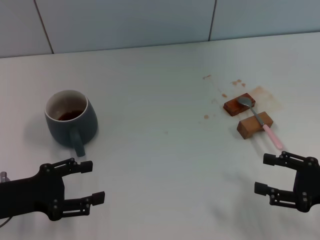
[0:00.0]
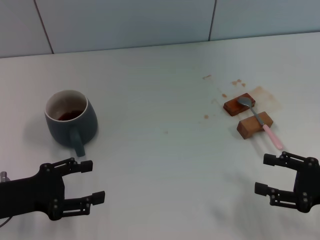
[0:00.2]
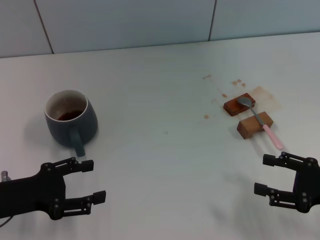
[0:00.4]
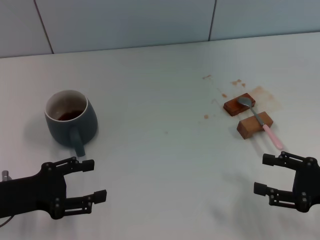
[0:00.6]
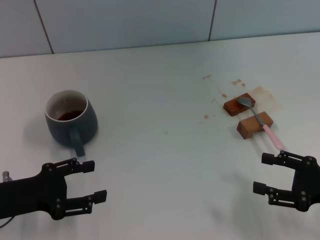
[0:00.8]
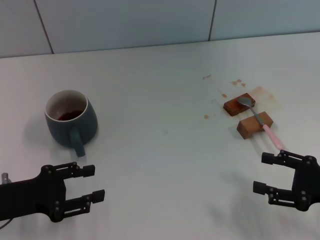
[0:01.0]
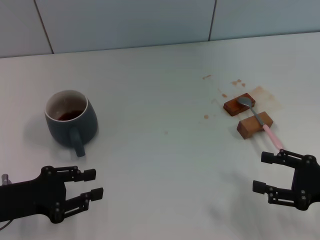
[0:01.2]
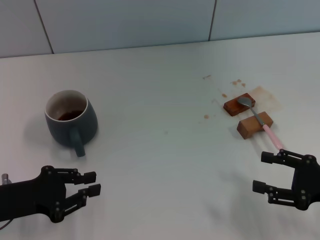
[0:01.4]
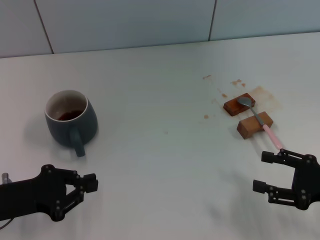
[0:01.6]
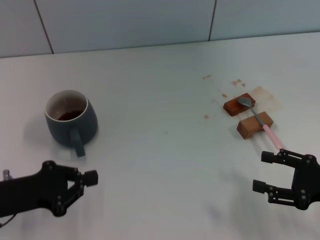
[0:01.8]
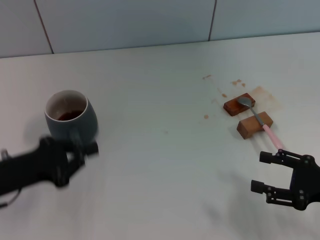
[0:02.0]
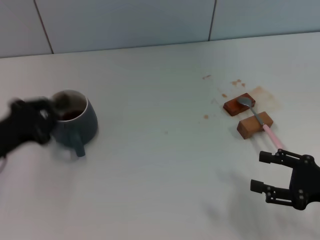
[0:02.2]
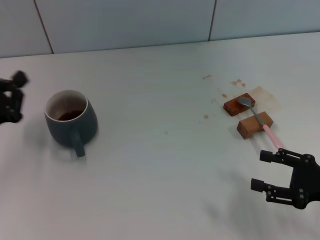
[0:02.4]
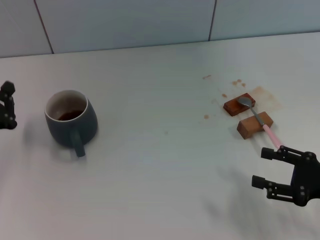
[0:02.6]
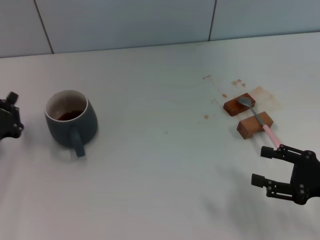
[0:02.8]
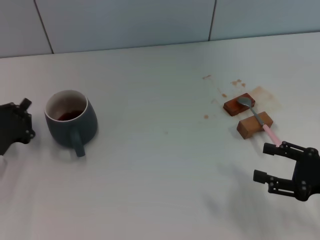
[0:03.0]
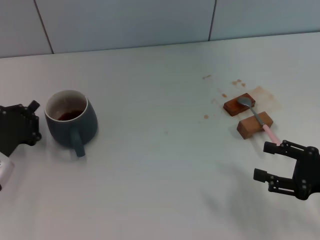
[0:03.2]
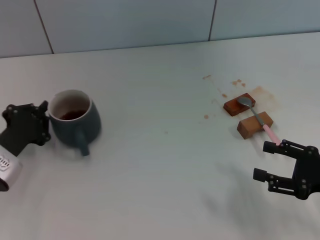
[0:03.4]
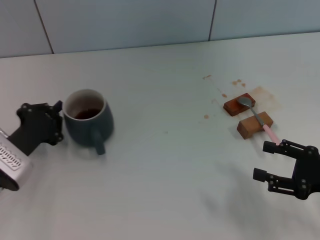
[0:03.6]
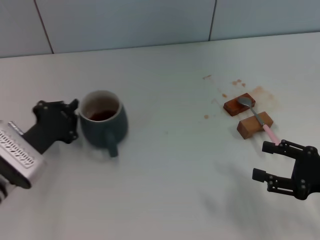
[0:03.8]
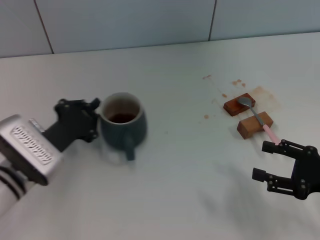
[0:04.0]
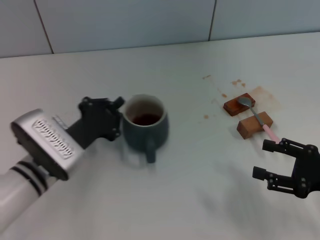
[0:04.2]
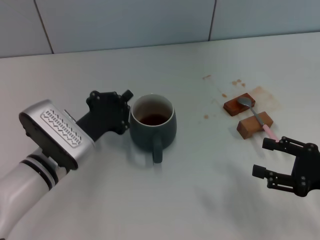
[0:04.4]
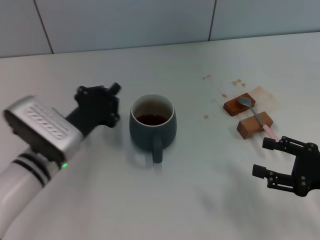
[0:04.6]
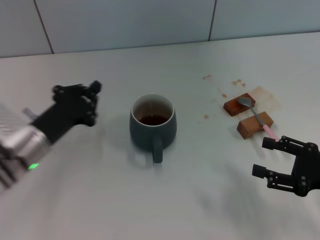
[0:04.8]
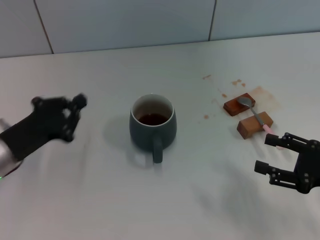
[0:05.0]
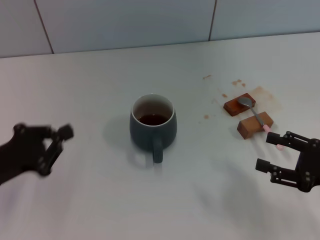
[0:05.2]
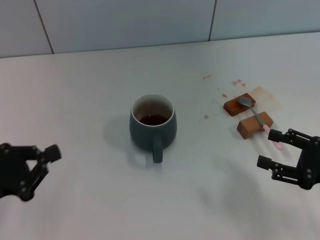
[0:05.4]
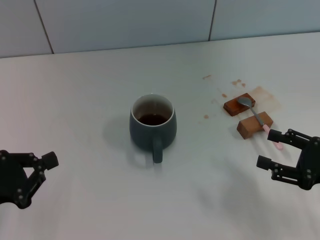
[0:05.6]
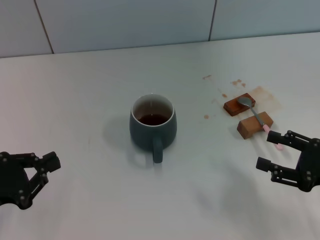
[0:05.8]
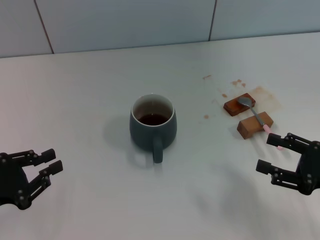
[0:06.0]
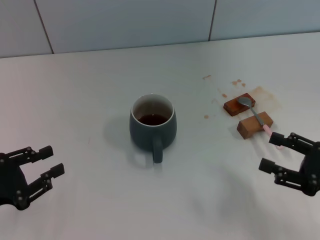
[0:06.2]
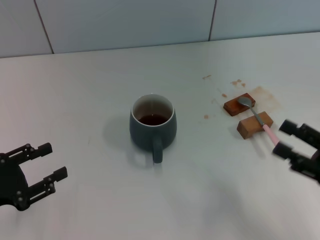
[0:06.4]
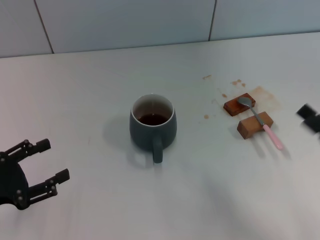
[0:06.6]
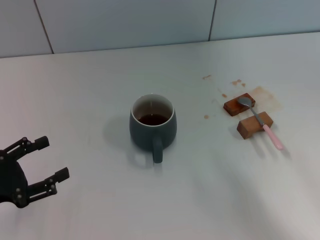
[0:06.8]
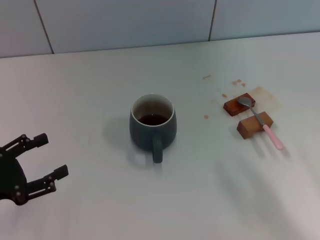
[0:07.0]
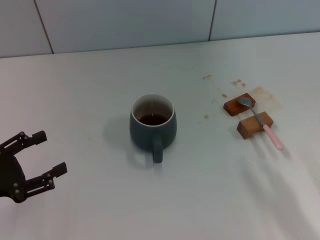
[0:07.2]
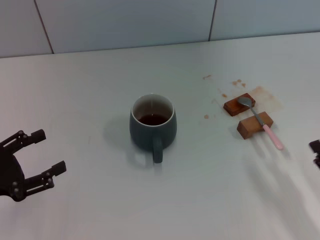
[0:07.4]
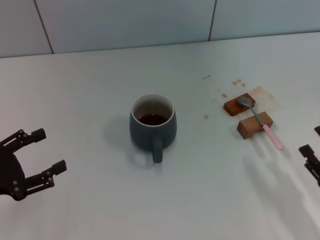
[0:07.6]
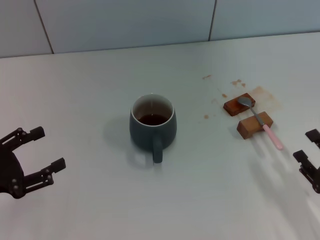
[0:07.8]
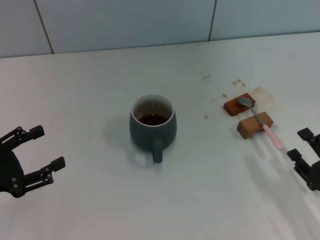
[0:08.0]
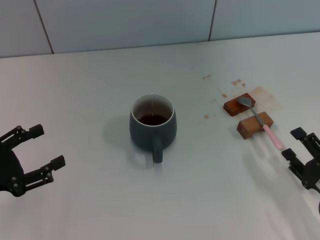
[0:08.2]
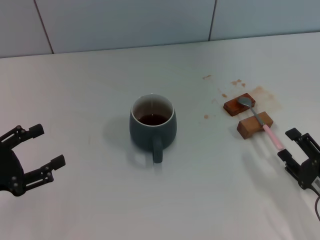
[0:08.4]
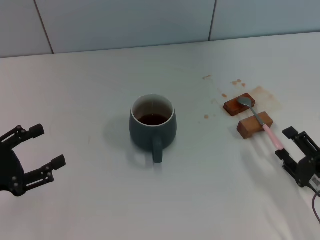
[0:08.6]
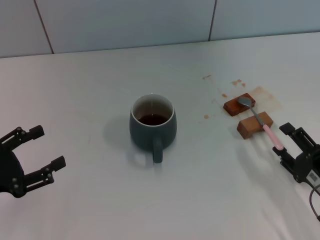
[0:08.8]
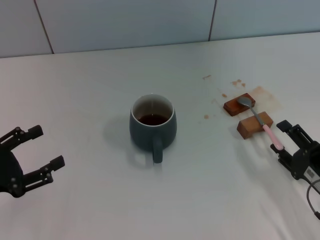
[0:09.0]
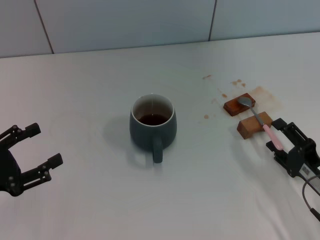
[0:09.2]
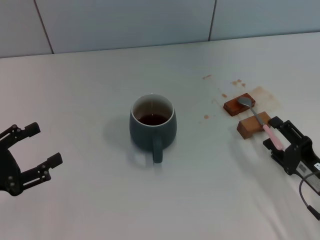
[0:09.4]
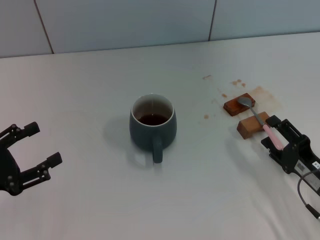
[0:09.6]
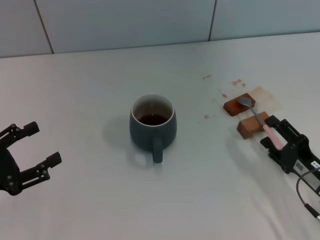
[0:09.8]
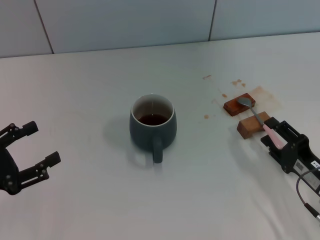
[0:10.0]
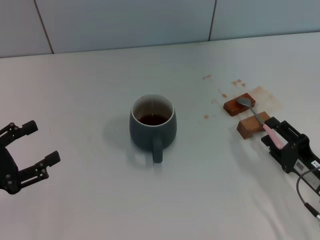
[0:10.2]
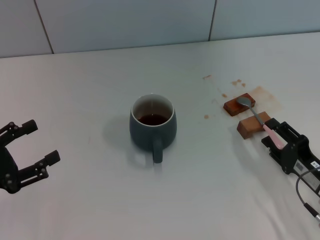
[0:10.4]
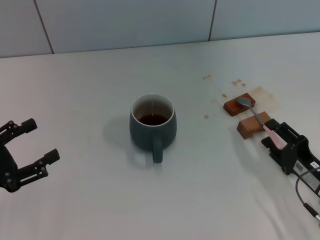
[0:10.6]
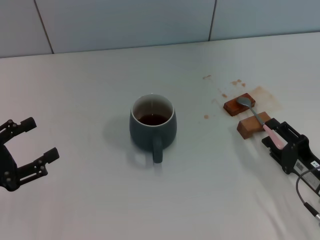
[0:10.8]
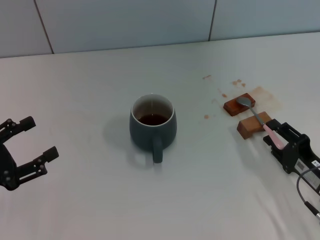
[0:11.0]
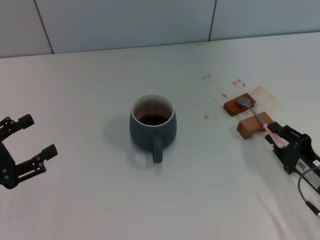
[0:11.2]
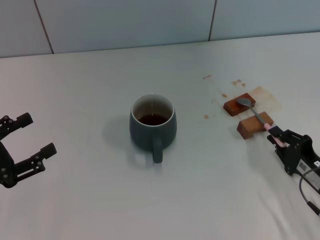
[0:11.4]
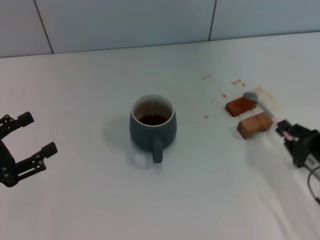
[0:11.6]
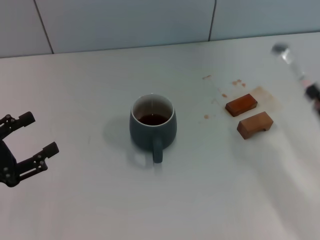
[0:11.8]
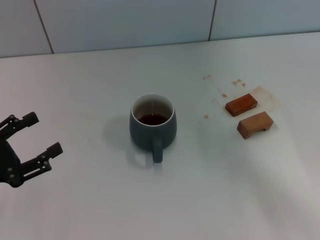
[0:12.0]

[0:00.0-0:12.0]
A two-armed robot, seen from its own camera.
Task of the whole recording: Move the grey cup to the center, lift the pink spoon, stir it three times in the cup, and put the spoon into the cup.
Step, 0:00.0 to 0:04.8: Move the cup with coffee to the center of view with the left gripper.
Step, 0:05.0 to 0:11.6: Pick up the spoon with the right gripper.
0:00.0 to 0:01.6: The left gripper closes up.
0:01.6 to 0:03.0: The left gripper changes place by roughly 5 cm.
0:03.0 to 0:04.4: The left gripper goes some 15 cm to the right.
0:04.4 to 0:06.0: The left gripper is displaced to the left and backward by roughly 20 cm.
0:06.0 to 0:07.6: The left gripper opens. Meanwhile the right gripper goes some 10 cm backward and downward.
0:07.6 to 0:09.0: The grippers stay close to where they were, moving slightly.
0:09.0 to 0:10.4: The grippers move only a little.
0:10.4 to 0:12.0: The right gripper heads upward and to the right, covering some 10 cm, and closes.

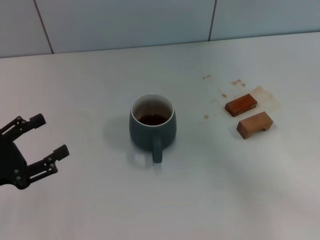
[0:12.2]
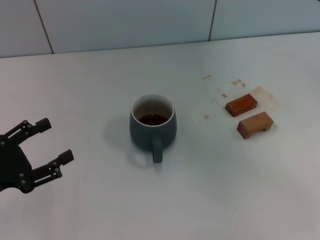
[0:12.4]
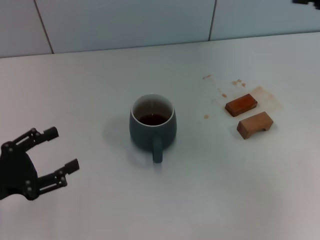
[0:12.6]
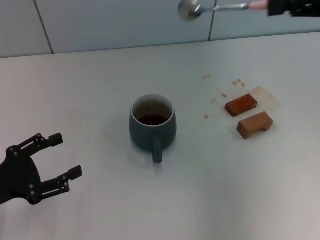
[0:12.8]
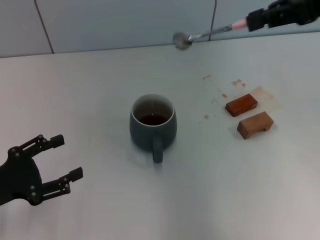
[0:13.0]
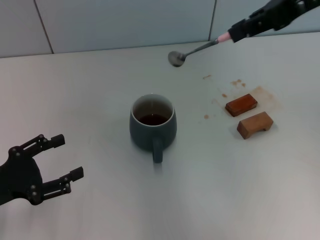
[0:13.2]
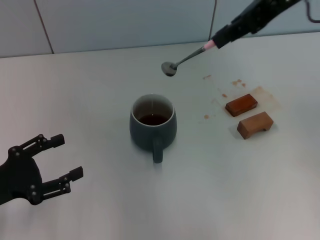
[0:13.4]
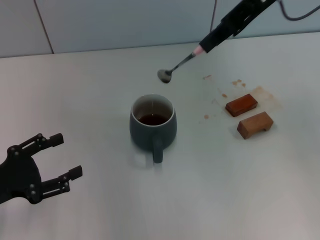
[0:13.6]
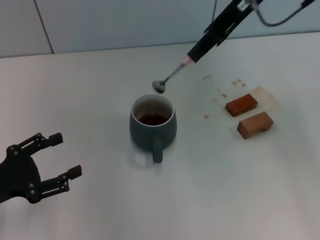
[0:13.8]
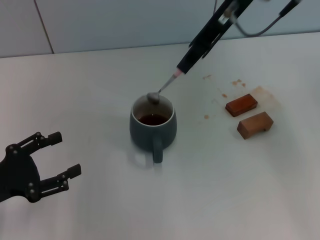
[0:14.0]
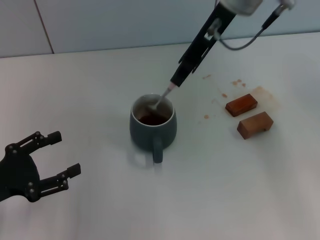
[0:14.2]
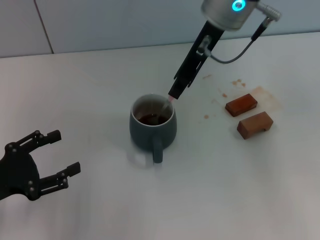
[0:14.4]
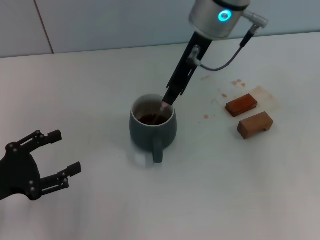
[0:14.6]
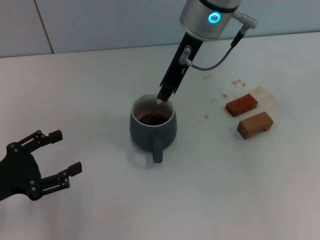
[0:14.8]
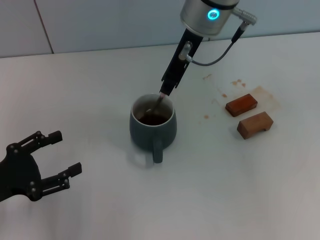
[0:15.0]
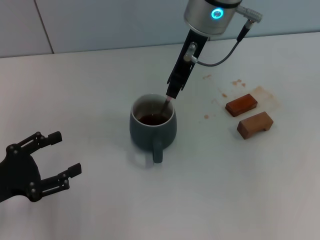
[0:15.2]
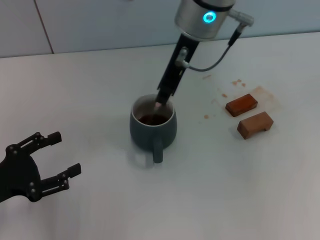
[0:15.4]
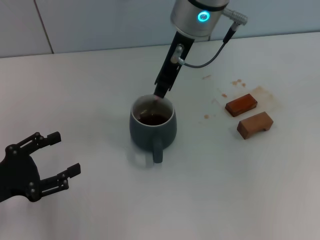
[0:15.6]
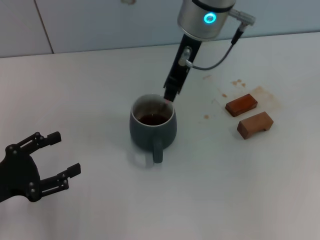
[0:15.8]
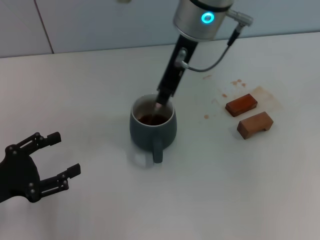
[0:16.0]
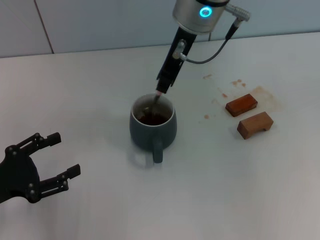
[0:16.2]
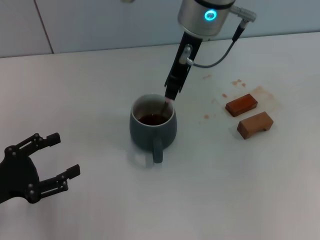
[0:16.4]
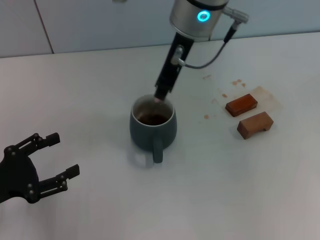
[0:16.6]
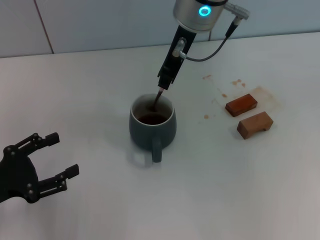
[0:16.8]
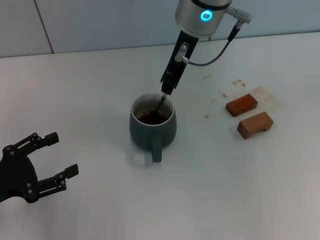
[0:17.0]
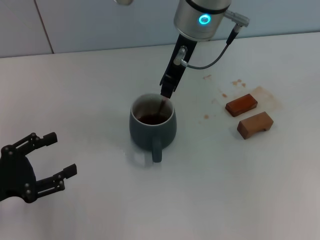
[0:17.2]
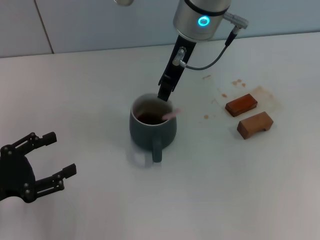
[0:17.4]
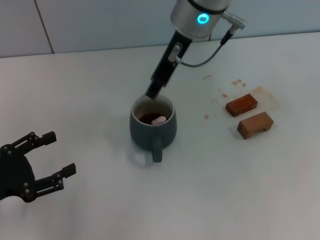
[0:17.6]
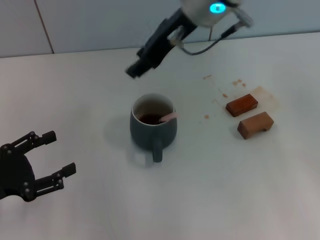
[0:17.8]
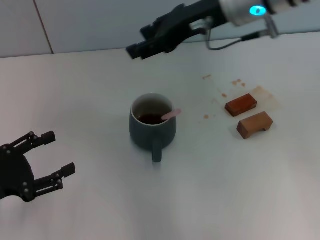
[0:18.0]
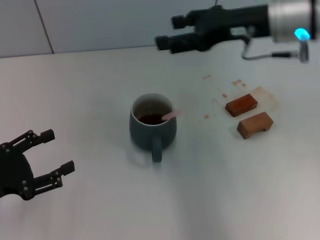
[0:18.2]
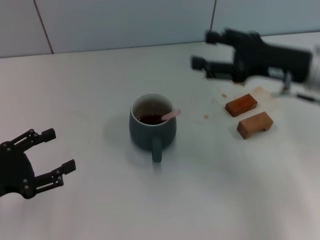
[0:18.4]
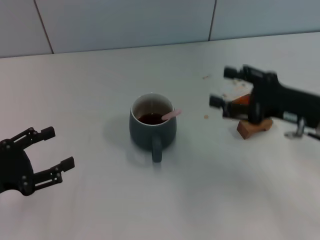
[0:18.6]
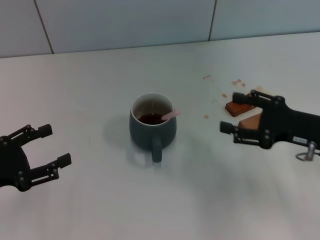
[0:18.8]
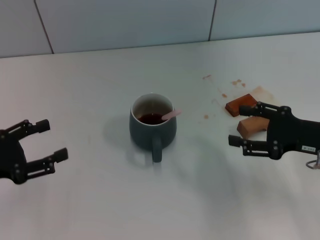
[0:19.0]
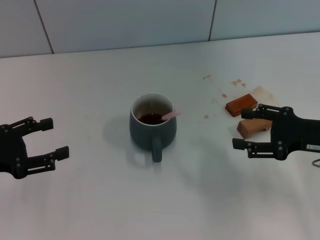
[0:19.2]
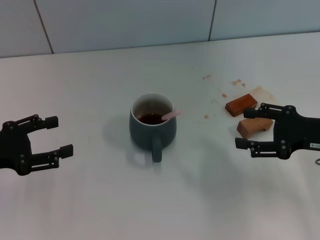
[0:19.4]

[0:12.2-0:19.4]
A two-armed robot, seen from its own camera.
Task of the whole recording: Move the grey cup to the center, lift the pink spoon, stir it three times in the cup, and put the spoon into the cup.
Step, 0:12.2 to 0:17.6: Stir the coffee in the cup with the right gripper.
0:12.2 to 0:13.6: The right gripper travels to the left, upward and forward by about 30 cm.
0:13.6 to 0:15.0: The right gripper travels to the left and downward by roughly 15 cm.
0:15.0 to 0:16.6: The grippers move only a little.
0:16.6 to 0:18.0: The right gripper goes some 10 cm to the right, and opens.
0:18.0 to 0:19.4: The right gripper is displaced to the right, downward and backward by about 25 cm, and opens its fingers; the left gripper moves approximately 5 cm.
